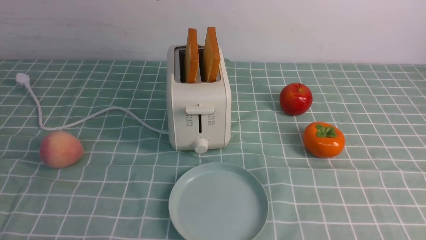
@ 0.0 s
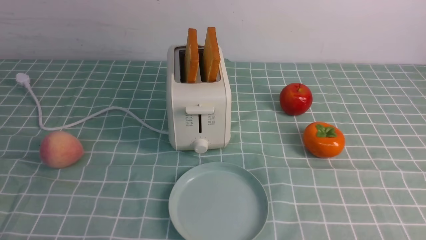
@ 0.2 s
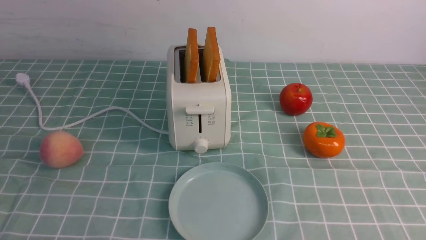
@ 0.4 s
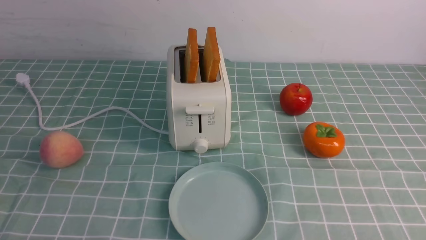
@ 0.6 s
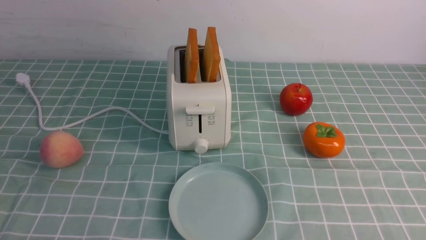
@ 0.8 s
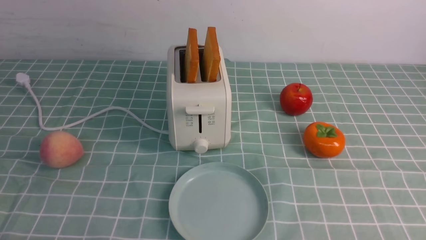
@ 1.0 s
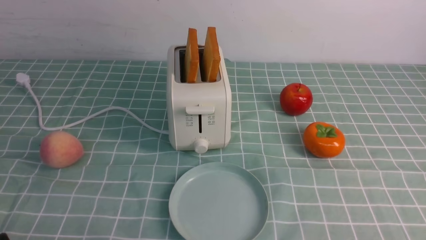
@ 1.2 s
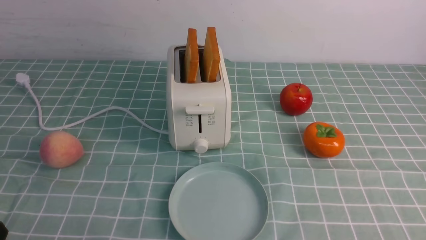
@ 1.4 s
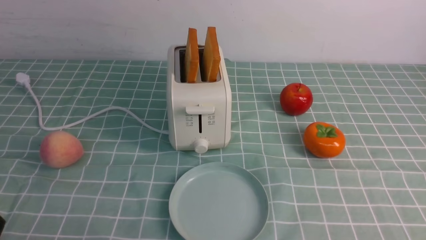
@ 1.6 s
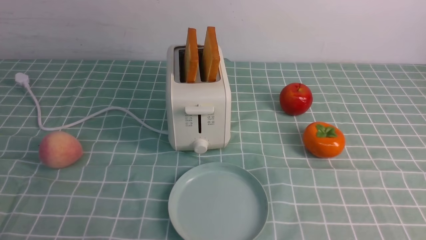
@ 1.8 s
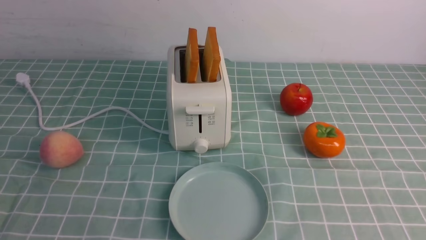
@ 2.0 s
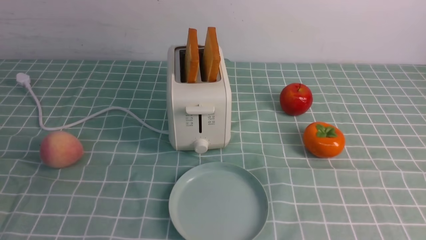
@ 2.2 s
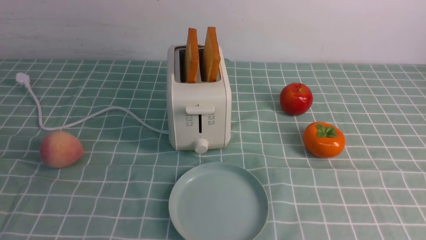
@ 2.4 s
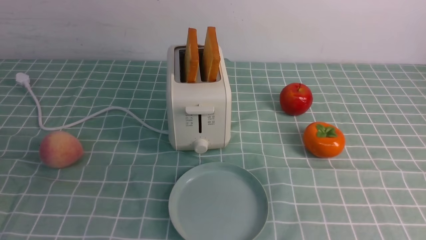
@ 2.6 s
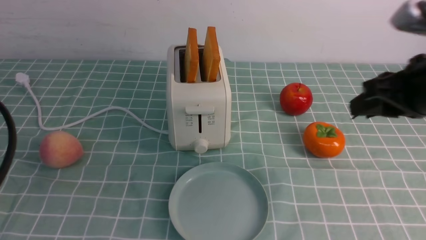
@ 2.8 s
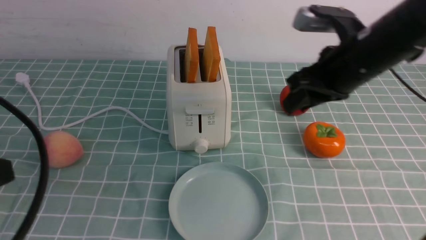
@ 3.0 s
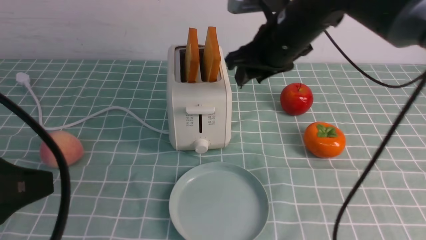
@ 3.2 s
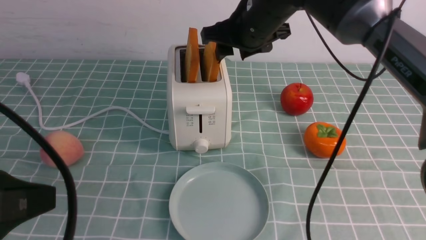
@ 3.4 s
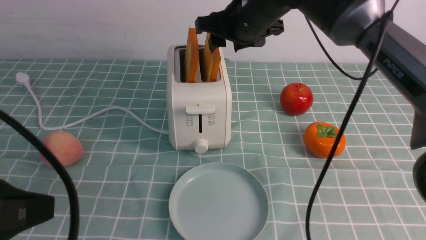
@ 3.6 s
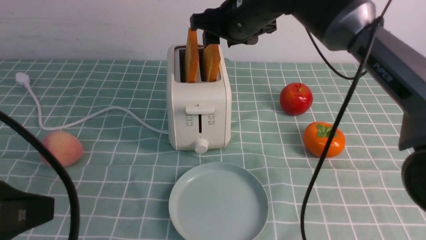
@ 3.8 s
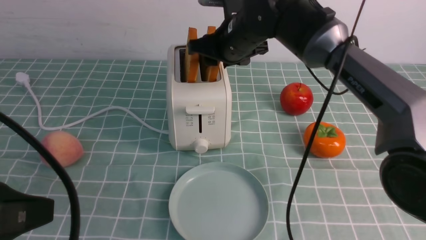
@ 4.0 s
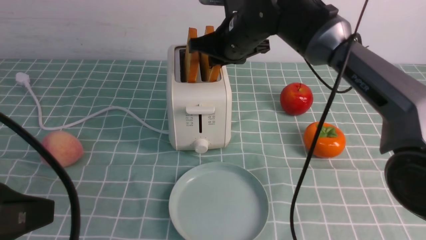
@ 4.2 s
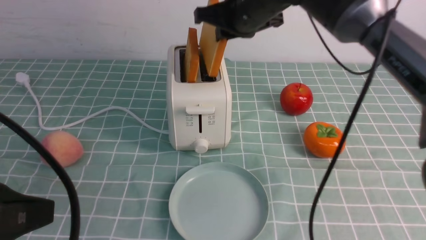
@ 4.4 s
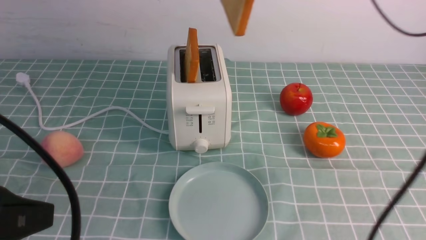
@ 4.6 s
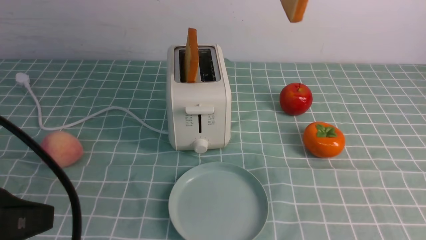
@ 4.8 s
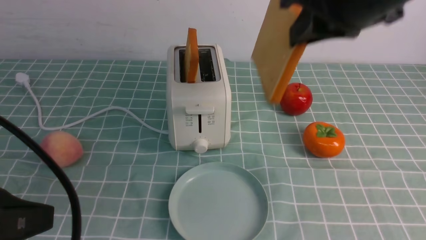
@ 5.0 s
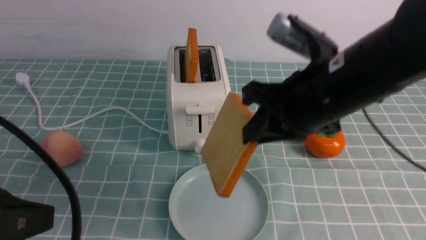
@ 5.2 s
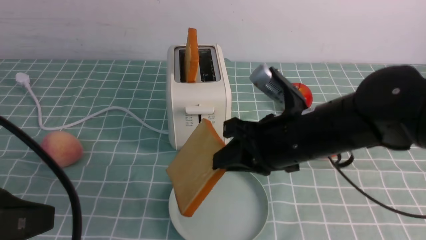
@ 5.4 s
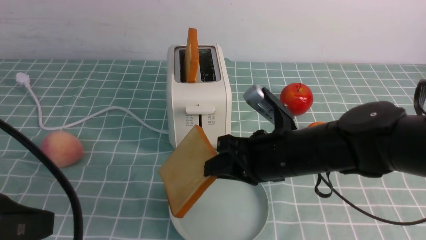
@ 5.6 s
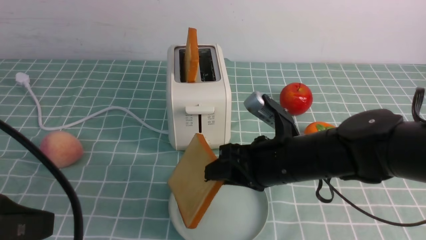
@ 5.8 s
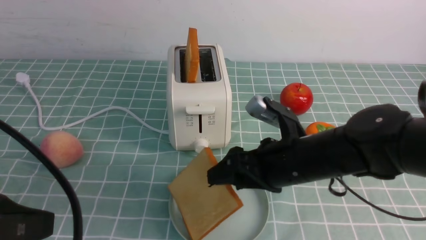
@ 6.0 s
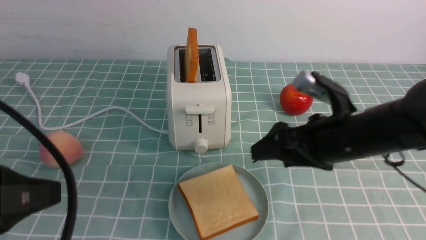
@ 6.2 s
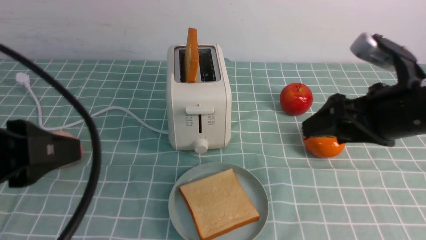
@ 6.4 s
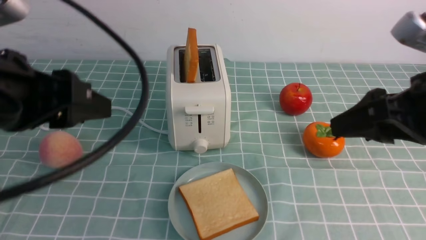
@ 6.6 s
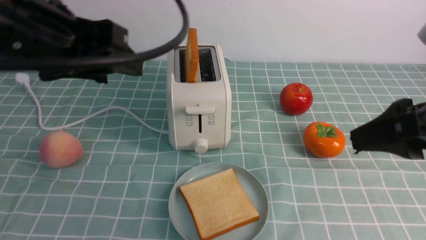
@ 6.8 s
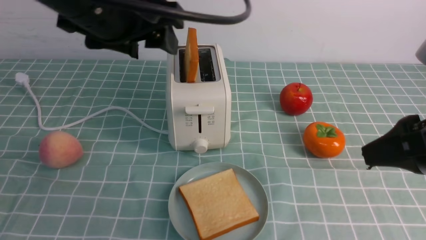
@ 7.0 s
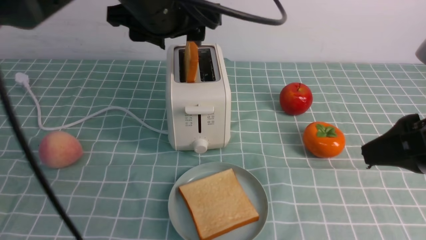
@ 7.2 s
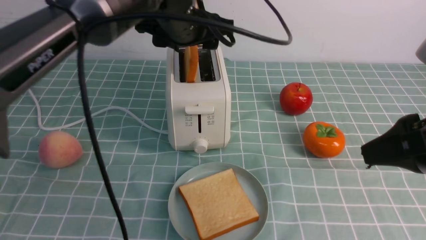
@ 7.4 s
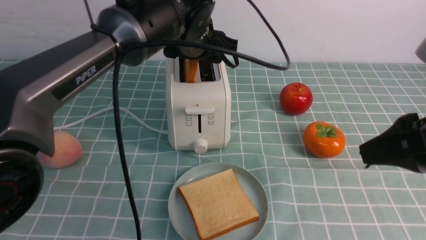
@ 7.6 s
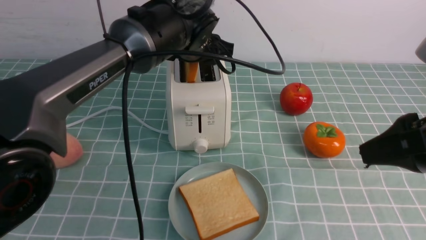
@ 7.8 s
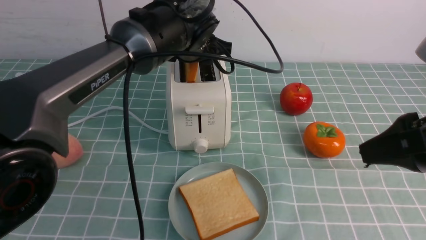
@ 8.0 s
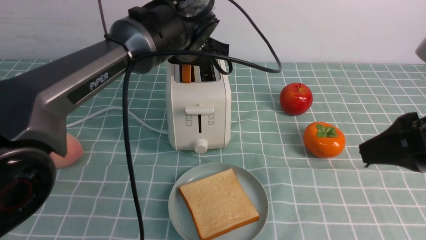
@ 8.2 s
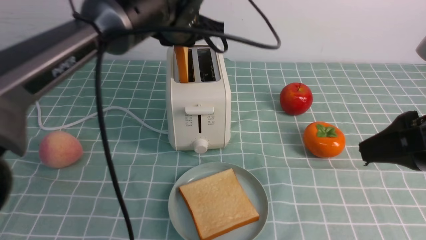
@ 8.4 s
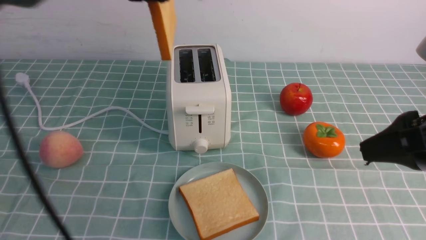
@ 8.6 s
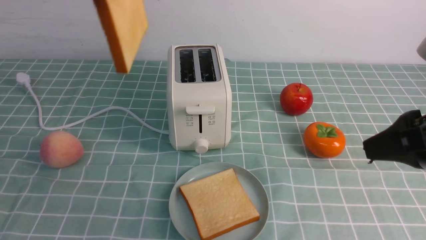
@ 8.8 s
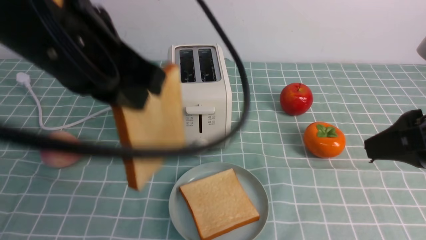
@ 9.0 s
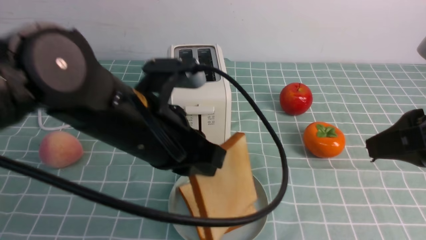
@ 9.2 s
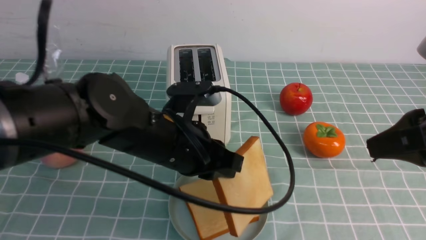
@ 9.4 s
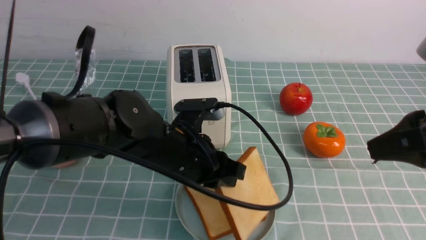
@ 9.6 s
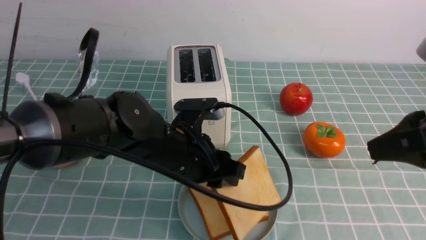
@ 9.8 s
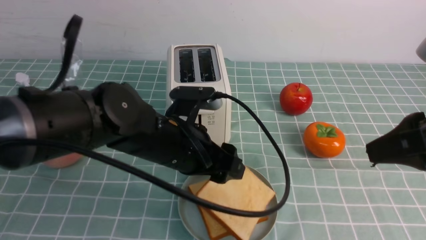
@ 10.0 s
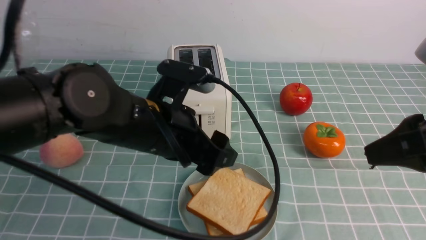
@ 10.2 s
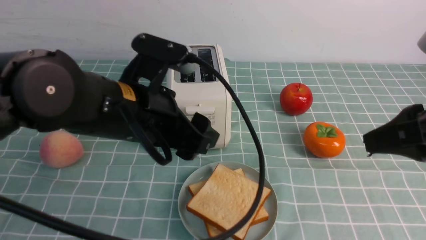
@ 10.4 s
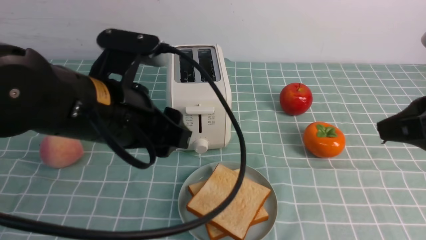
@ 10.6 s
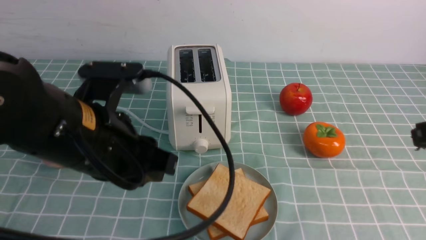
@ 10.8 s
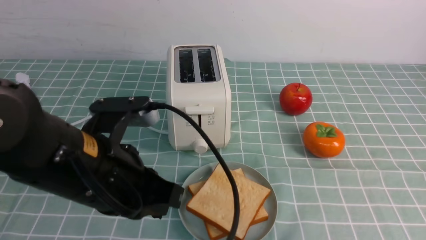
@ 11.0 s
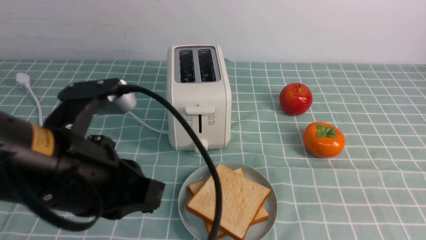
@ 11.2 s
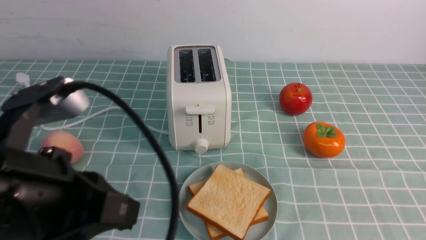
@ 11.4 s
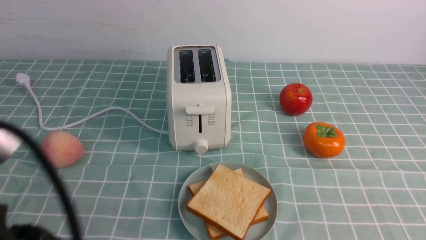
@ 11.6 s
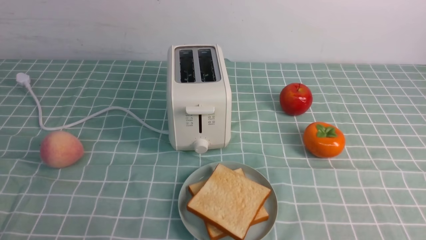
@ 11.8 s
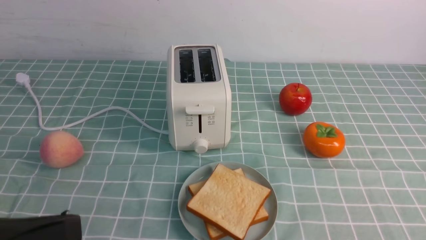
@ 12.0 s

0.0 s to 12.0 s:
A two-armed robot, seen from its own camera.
Task of the whole recording: take toasted bread from bread machine on blue coffee table place on plate.
Step, 0.0 to 4.8 s: use the right arm to take out a slice of bread.
Step, 5.0 to 6.6 s: use the right arm to put a slice of bread into the plate.
Step, 6.8 to 8.6 s: use the left arm to take out a slice of bread.
Step, 8.8 to 10.2 s: use the left arm to put a slice of bread into the empty plate.
1.6 to 3.0 s: The right gripper heads forward, to the left and upward, covering roughly 35 cm. Meanwhile the left gripper travels upward by some 15 cm.
3.0 to 4.4 s: The right gripper moves to the left and forward, approximately 10 cm.
4.4 to 6.0 s: The right gripper is displaced downward and backward by approximately 20 cm, and opens.
6.0 to 7.6 s: The right gripper shifts some 20 cm upward, to the right and backward. The left gripper travels forward and to the right by about 35 cm, and opens up.
7.6 to 9.0 s: The left gripper heads backward, covering approximately 20 cm, and closes up.
9.0 to 10.4 s: The left gripper shifts approximately 5 cm downward, and opens its fingers.
10.4 to 12.0 s: The left gripper is displaced backward and to the left by about 20 cm, and closes its fingers, while the right gripper shifts about 20 cm downward and backward, and closes.

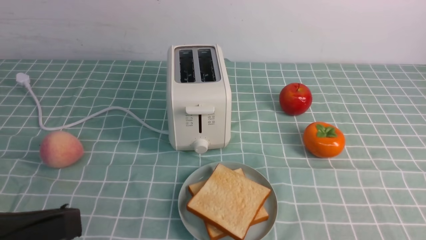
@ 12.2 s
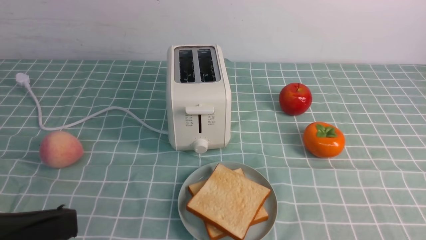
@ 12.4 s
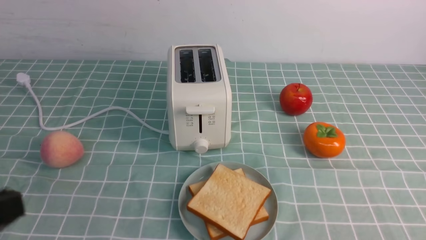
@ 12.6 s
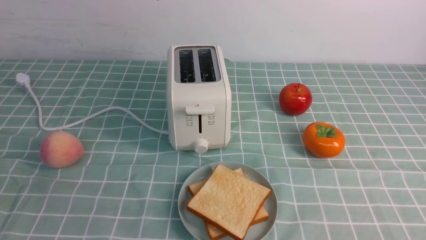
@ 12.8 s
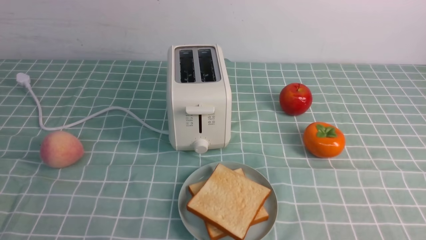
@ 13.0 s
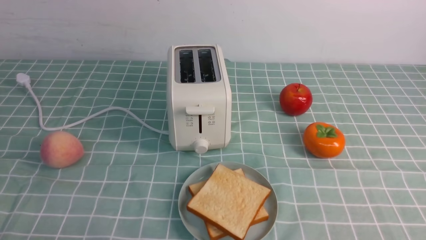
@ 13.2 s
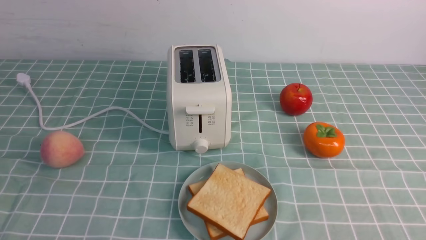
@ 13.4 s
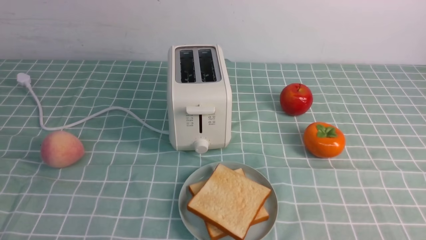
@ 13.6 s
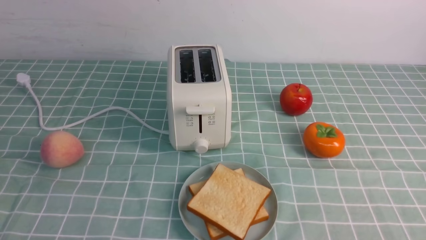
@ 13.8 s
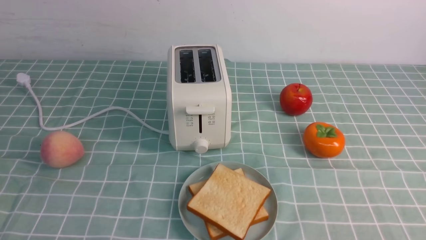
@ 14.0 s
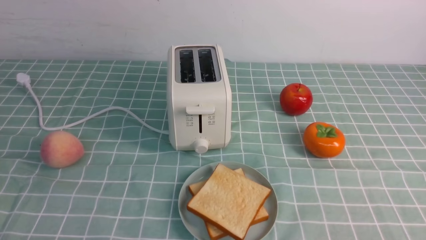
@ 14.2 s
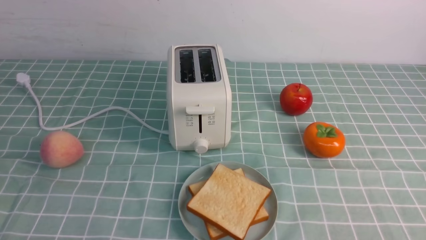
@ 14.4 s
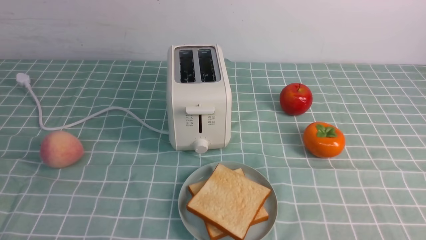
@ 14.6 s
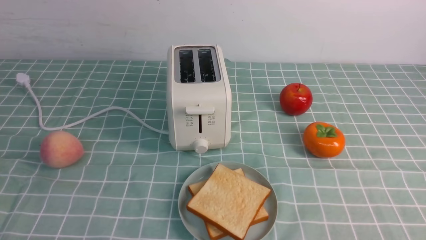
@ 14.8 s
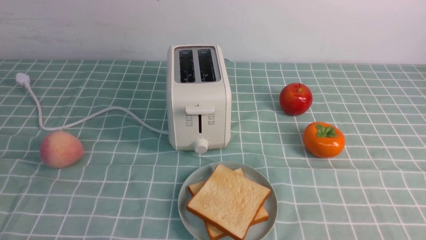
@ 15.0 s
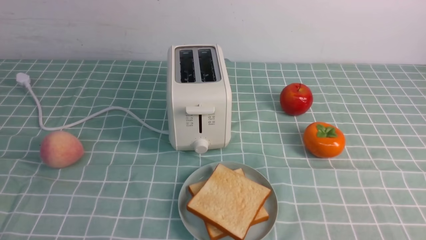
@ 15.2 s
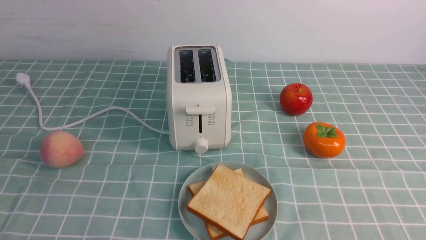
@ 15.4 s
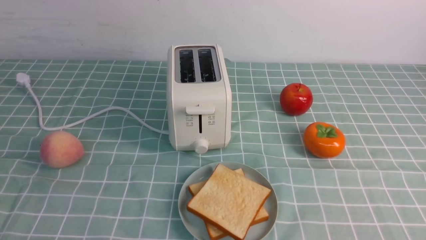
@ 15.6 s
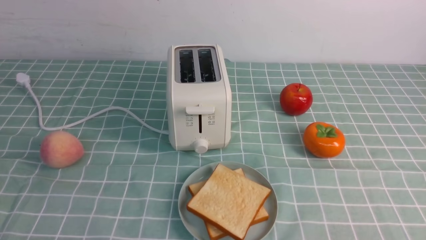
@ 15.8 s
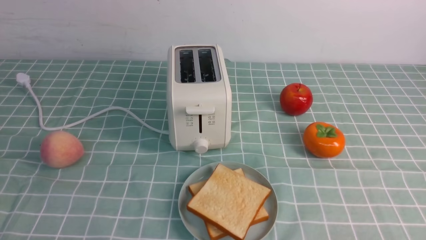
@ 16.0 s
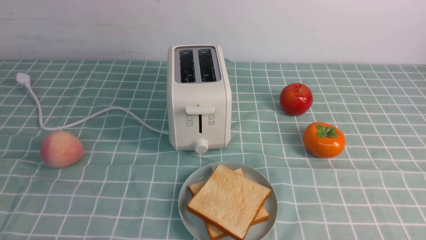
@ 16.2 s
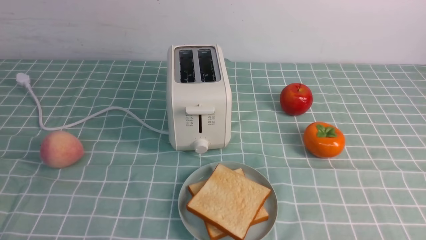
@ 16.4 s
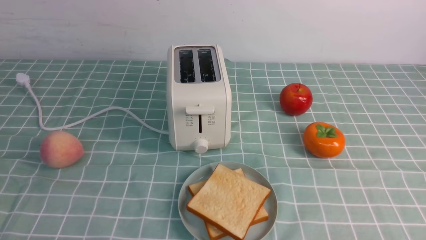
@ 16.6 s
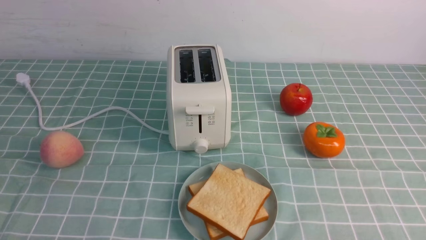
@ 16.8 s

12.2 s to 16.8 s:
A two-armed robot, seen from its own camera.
Task of the whole recording: take toasted bread from bread machine on blue coffee table place on plate.
12.2 to 13.8 s: The left gripper travels downward by roughly 15 cm.
